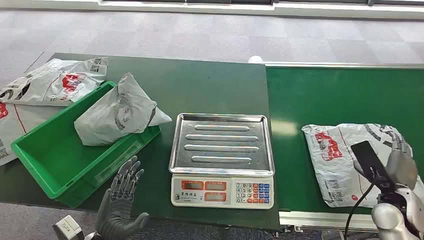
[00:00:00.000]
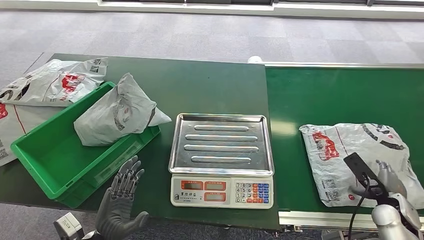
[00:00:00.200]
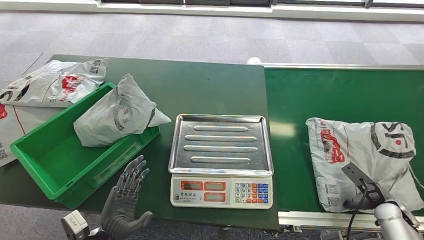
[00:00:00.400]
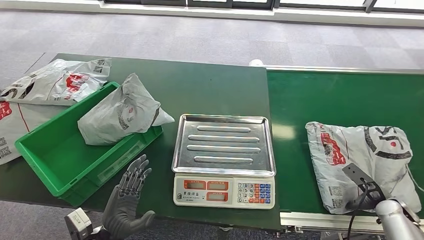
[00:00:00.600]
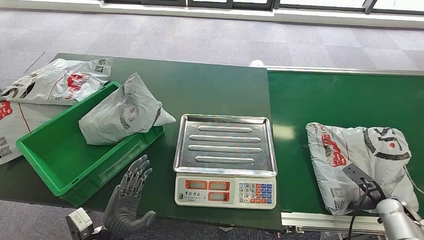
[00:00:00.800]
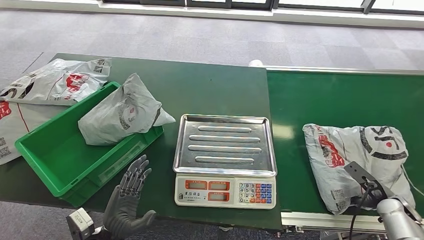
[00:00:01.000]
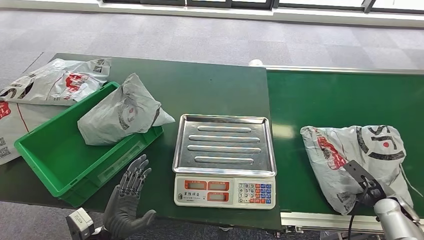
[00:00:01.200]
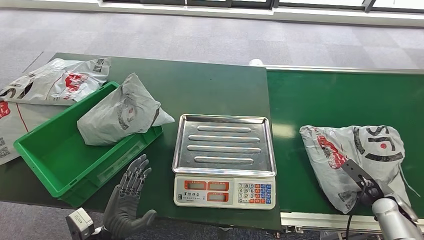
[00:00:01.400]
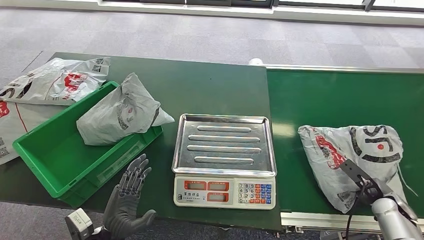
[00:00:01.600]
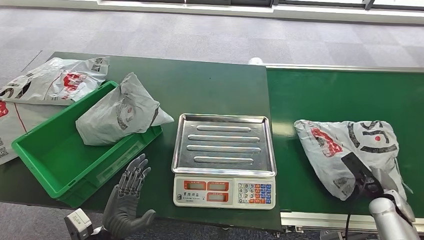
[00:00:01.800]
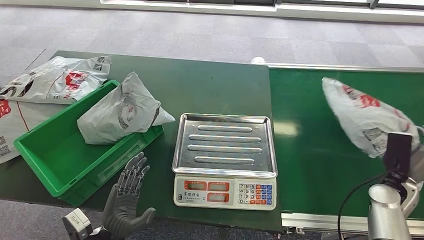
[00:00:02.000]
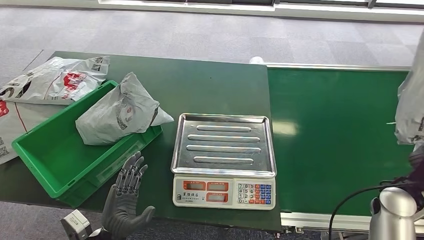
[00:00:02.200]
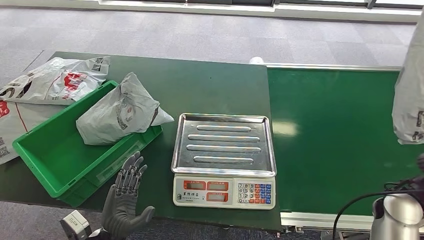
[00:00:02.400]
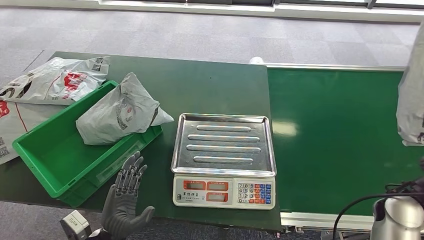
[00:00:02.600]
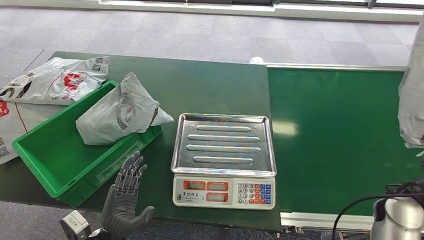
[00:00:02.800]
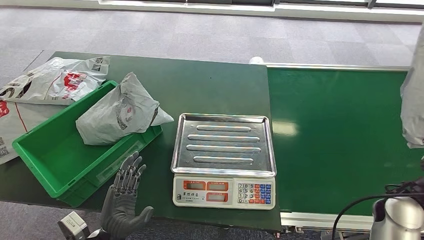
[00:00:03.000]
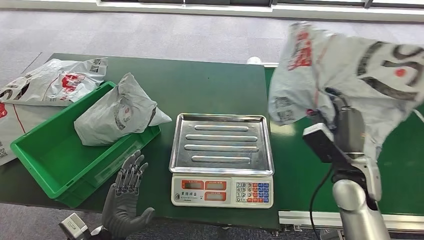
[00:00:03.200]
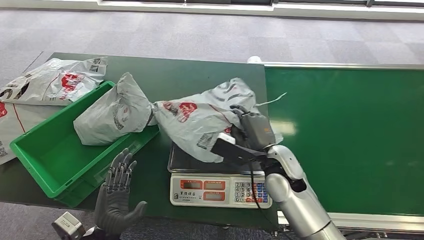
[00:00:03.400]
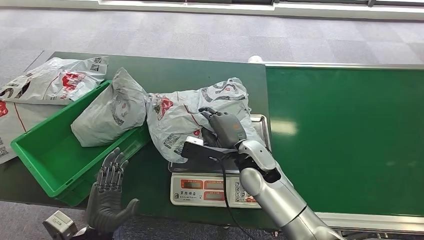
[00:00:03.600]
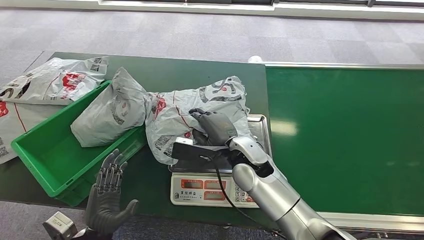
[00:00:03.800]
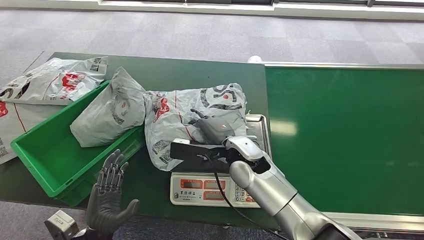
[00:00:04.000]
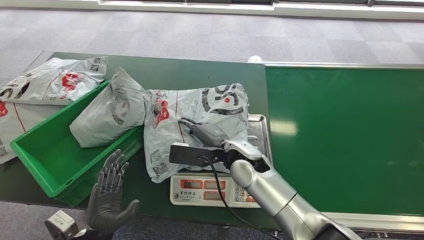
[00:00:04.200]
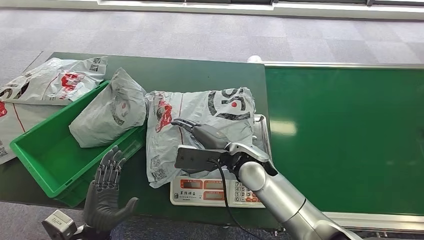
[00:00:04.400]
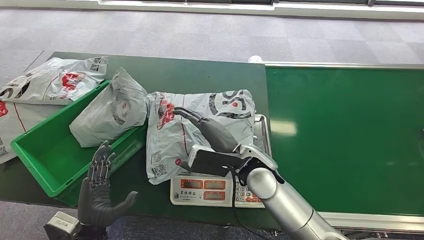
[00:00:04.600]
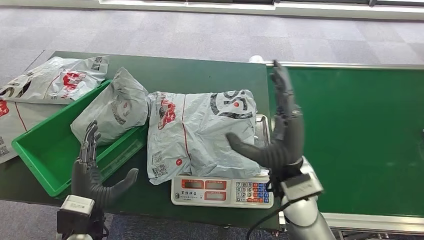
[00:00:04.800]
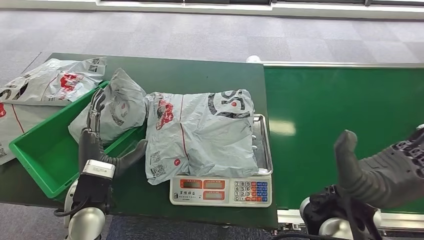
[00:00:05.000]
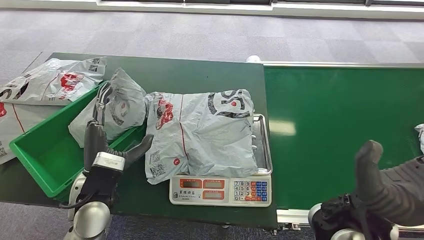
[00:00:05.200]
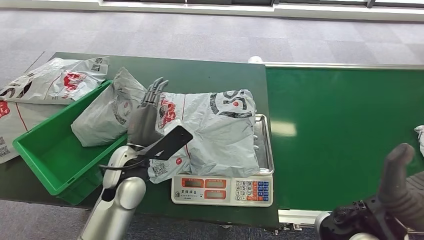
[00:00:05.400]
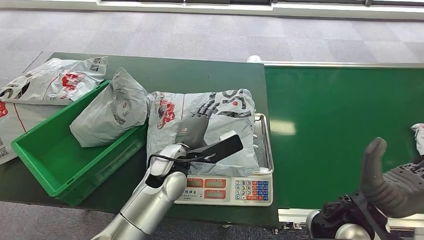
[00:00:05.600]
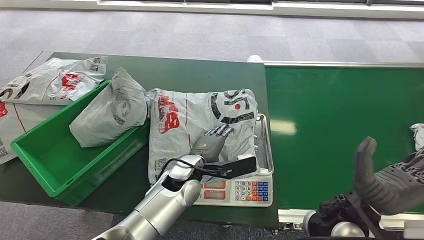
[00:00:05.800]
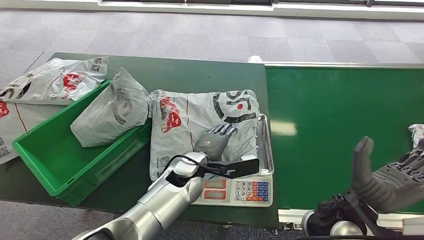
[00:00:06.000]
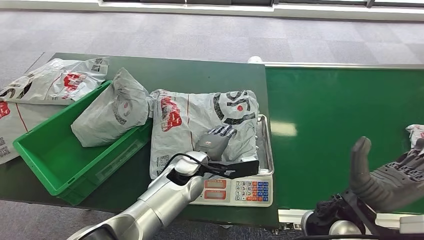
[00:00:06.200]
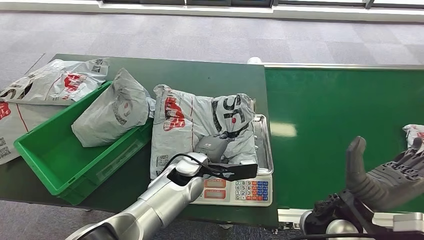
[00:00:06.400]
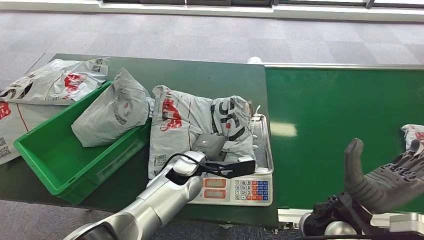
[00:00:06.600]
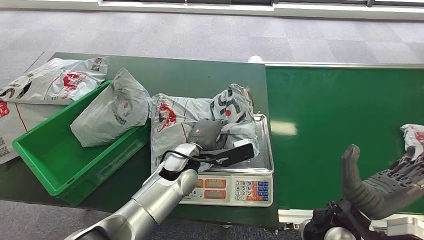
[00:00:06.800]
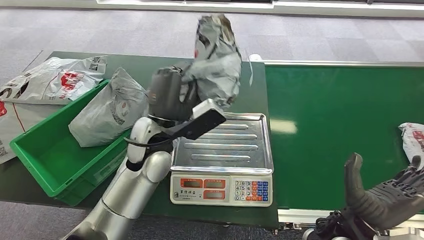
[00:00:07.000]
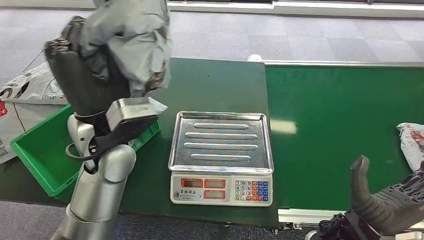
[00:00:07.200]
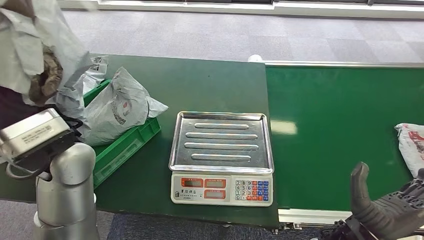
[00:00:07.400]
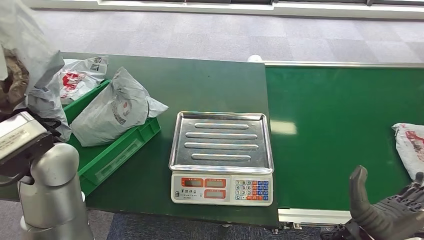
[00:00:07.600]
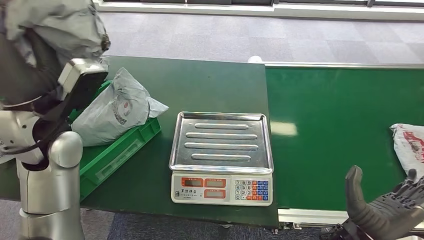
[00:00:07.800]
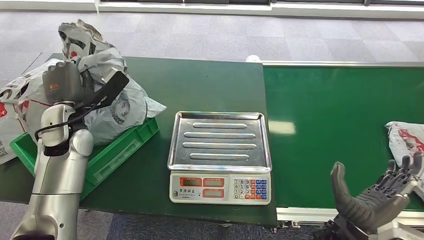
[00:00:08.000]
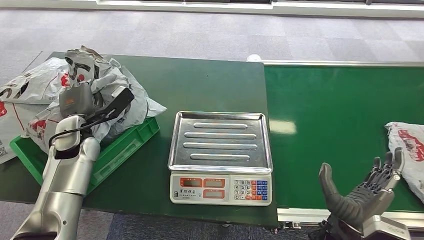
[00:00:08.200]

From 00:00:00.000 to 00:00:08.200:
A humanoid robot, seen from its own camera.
Step, from 00:00:00.000 to 00:00:02.400: Pick up the package from the conveyor belt.
Step, from 00:00:02.600 to 00:00:04.600: Place the package onto the inbound machine.
Step, from 00:00:04.800 to 00:00:07.200: Pick up the package from the inbound machine.
Step, from 00:00:07.400 to 00:00:08.200: Place the package into the parcel locker.
